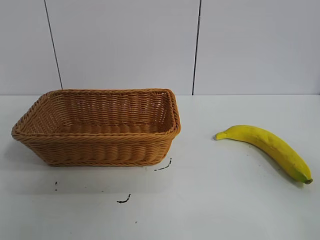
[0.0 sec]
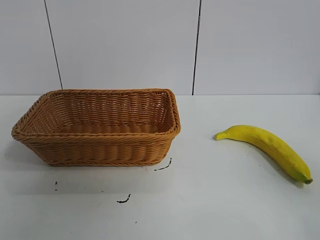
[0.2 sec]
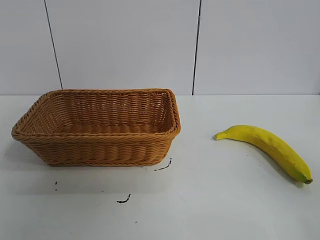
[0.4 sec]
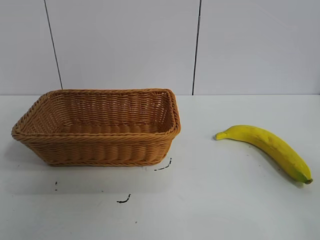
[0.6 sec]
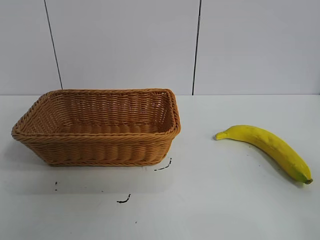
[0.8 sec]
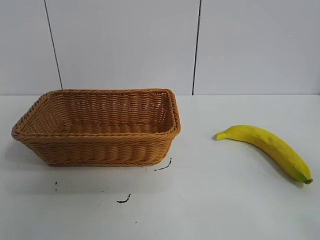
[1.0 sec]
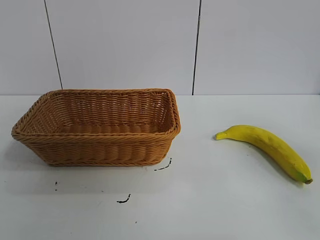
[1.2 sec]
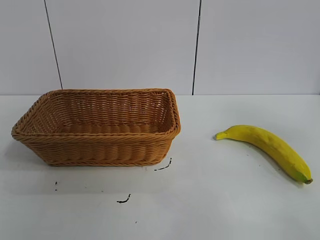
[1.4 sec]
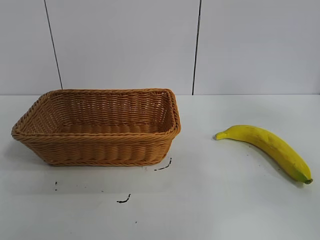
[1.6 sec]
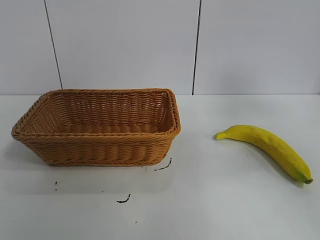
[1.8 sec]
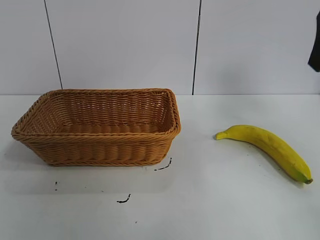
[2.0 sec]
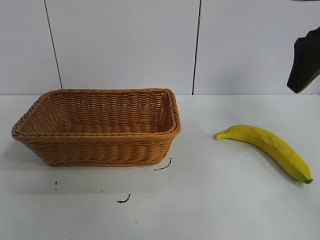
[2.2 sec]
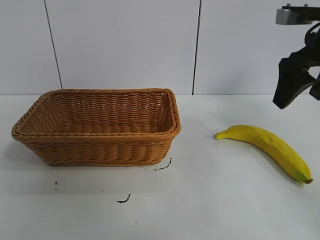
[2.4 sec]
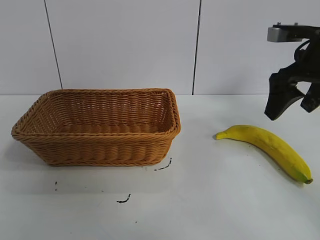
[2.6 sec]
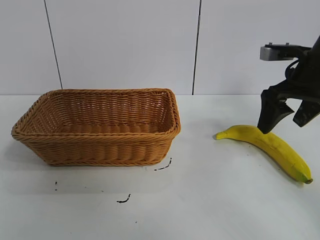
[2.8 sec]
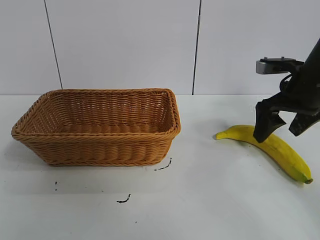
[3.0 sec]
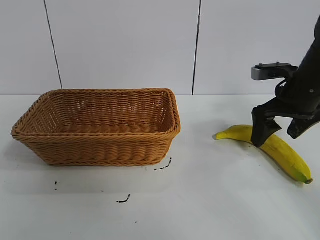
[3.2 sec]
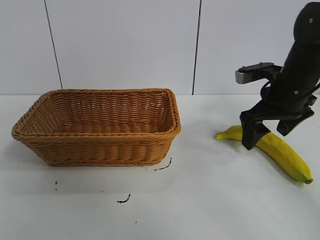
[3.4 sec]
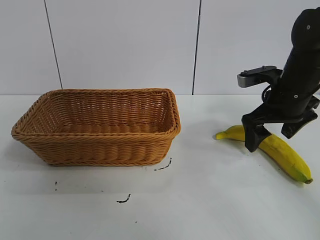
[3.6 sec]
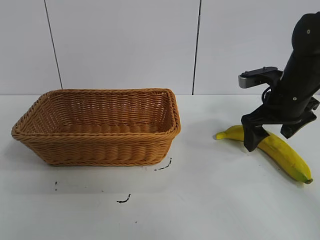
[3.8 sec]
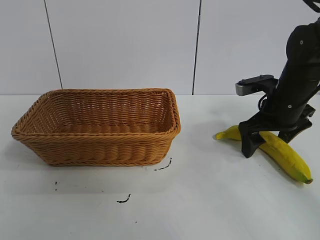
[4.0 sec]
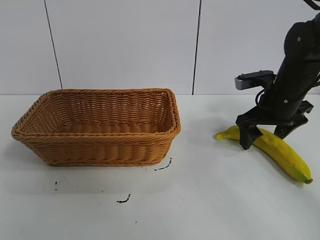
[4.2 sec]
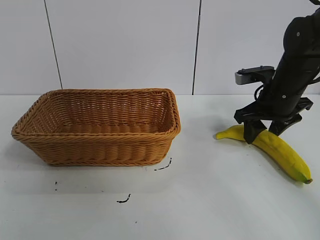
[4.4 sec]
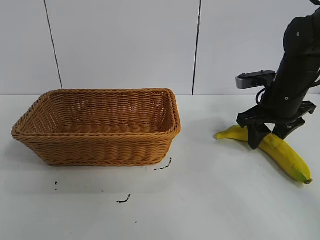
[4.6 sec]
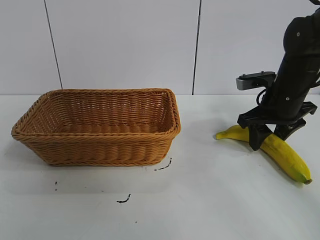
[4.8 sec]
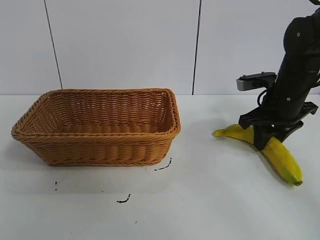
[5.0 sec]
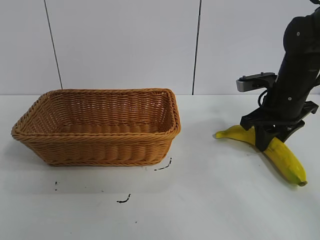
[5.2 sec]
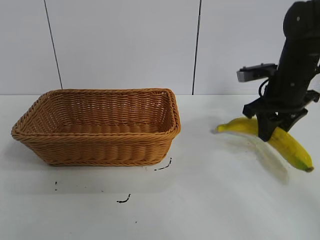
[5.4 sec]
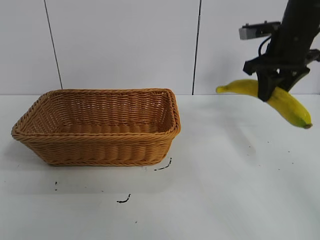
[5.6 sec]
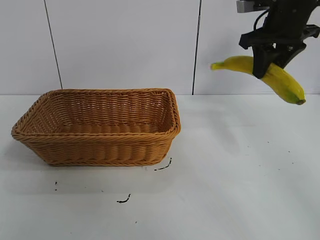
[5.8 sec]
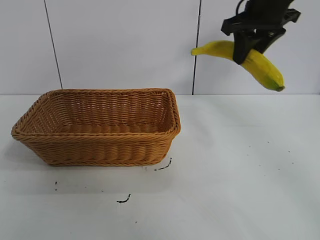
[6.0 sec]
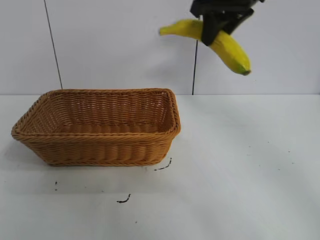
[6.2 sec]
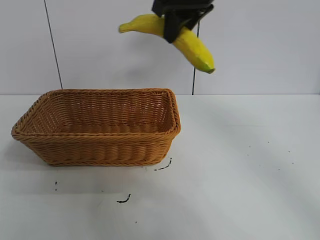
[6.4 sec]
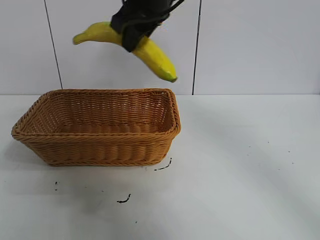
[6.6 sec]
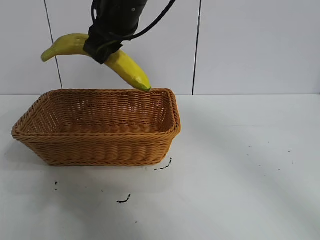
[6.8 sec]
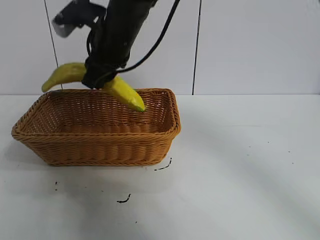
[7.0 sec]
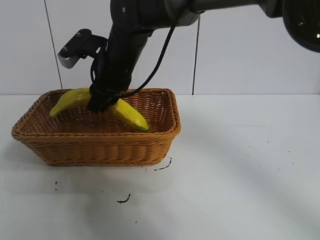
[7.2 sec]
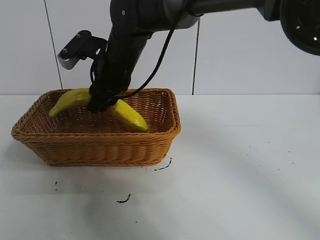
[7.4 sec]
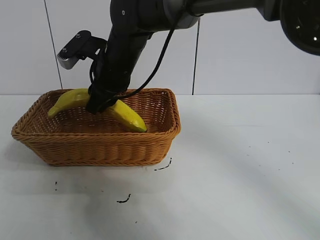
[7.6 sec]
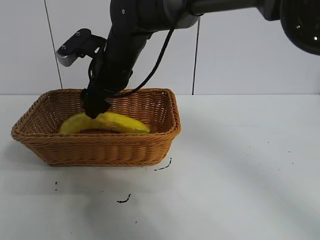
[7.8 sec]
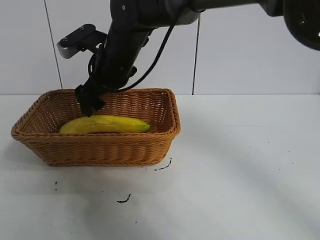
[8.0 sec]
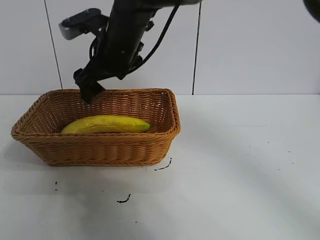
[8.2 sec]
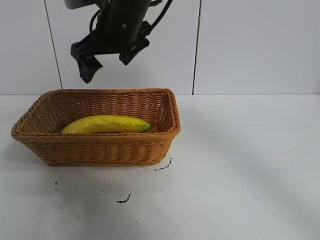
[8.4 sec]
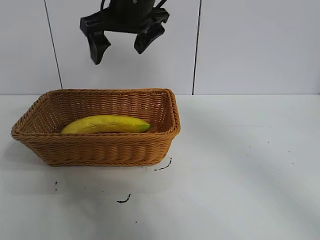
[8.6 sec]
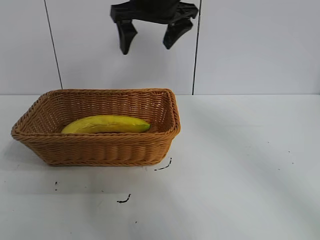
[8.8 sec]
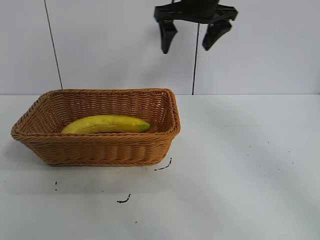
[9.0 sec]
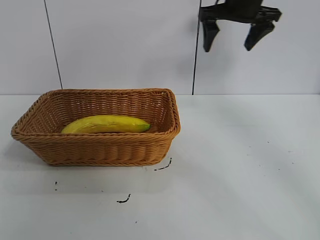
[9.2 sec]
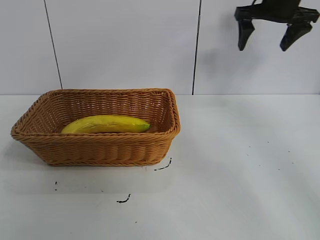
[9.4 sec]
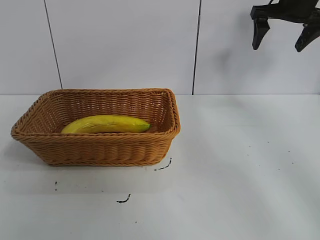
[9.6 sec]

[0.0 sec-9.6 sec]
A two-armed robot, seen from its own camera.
Task of the whole recording: pick up the banana and put it into the basket.
Step, 0.8 sec to 5.0 sec: Grasp the banana with right gripper.
Step, 5.2 sec to 8.2 sec: Place the banana in the basket with right gripper.
